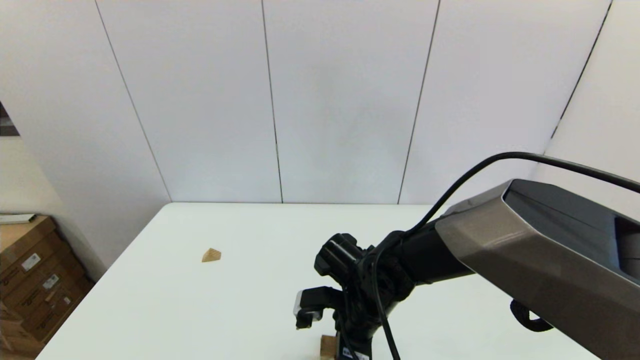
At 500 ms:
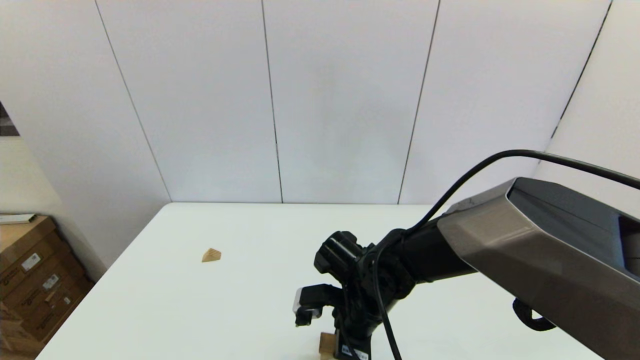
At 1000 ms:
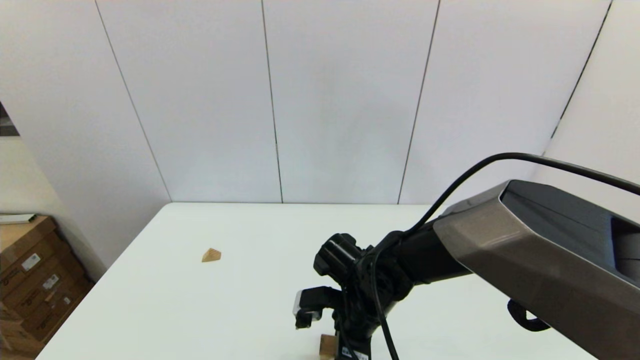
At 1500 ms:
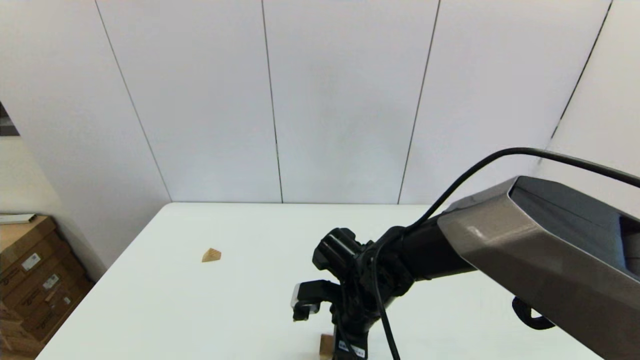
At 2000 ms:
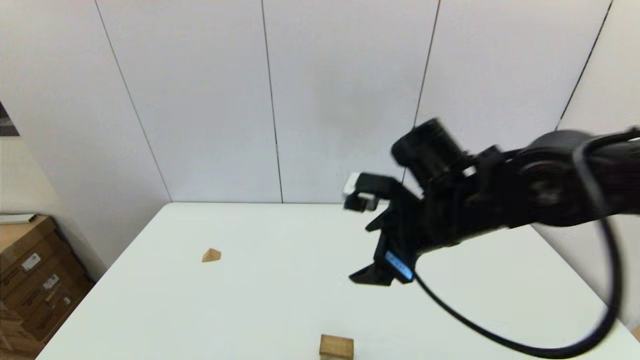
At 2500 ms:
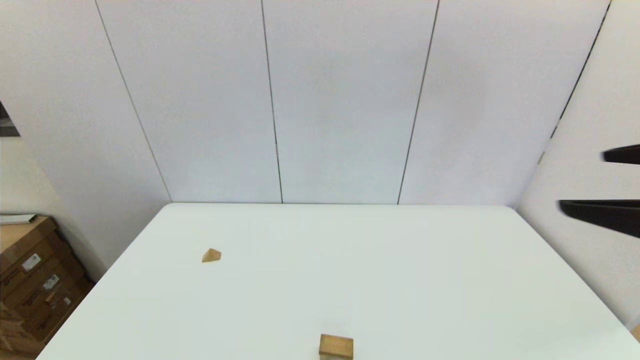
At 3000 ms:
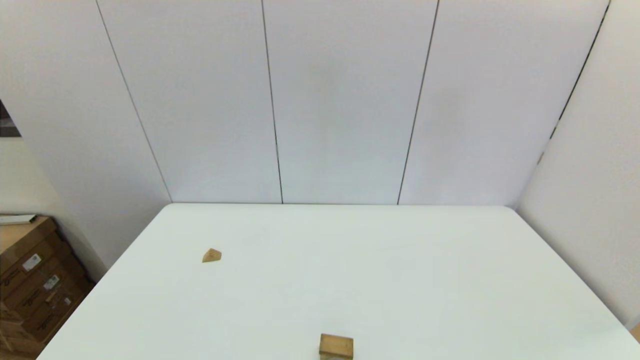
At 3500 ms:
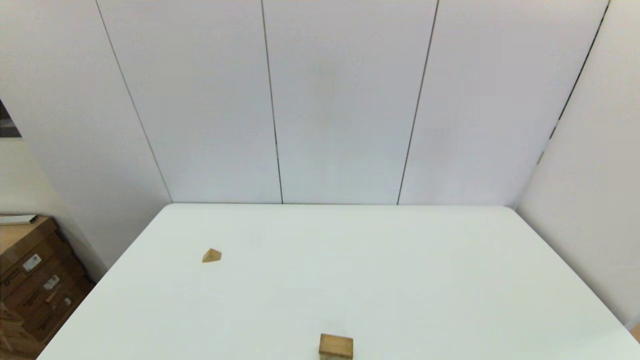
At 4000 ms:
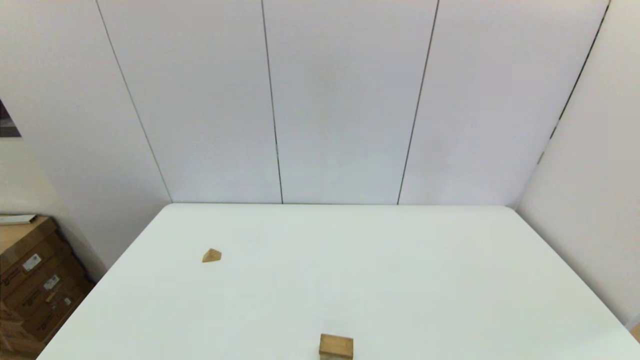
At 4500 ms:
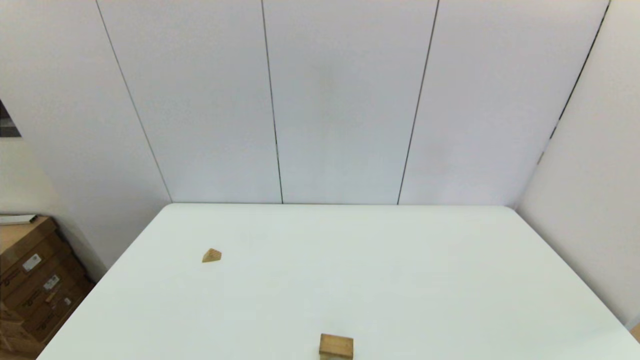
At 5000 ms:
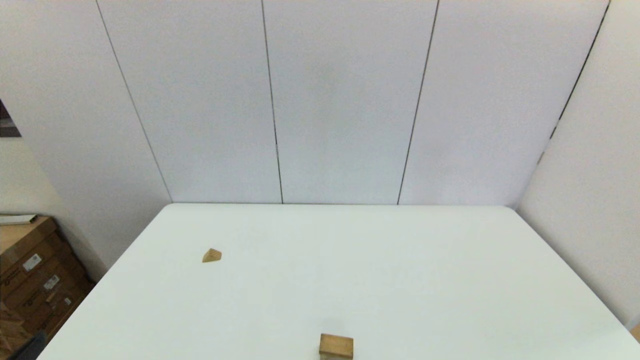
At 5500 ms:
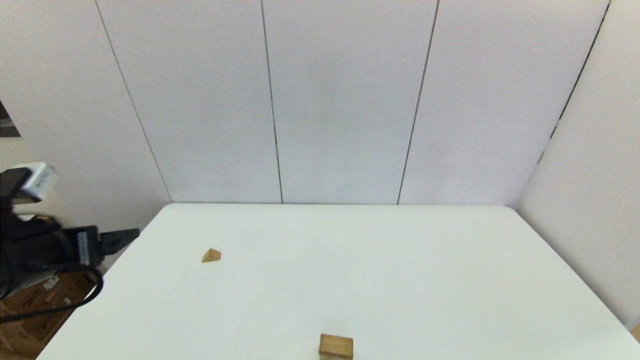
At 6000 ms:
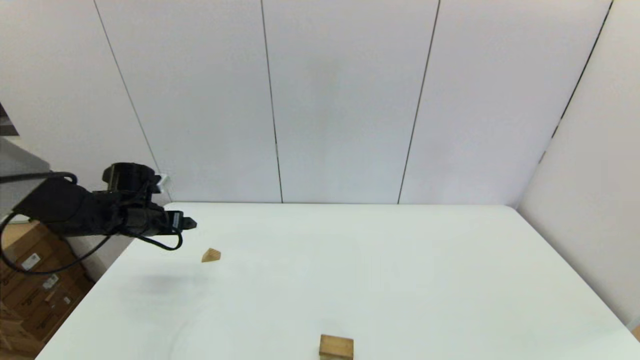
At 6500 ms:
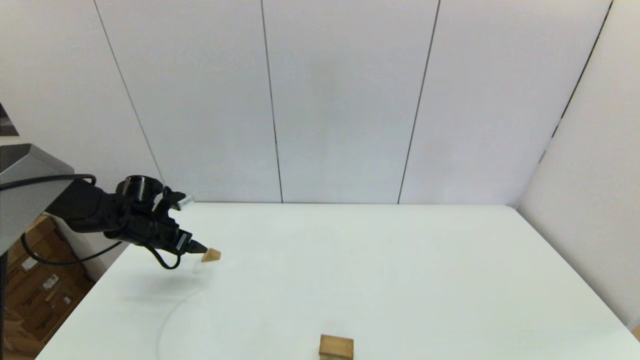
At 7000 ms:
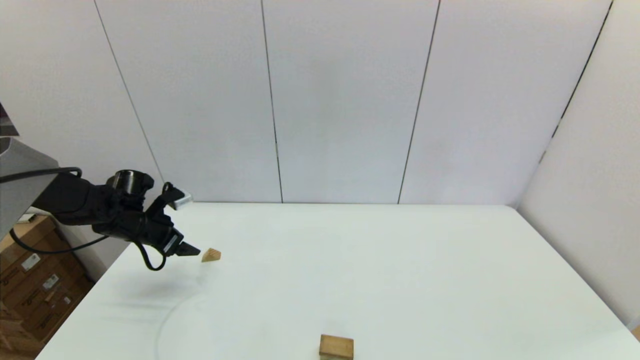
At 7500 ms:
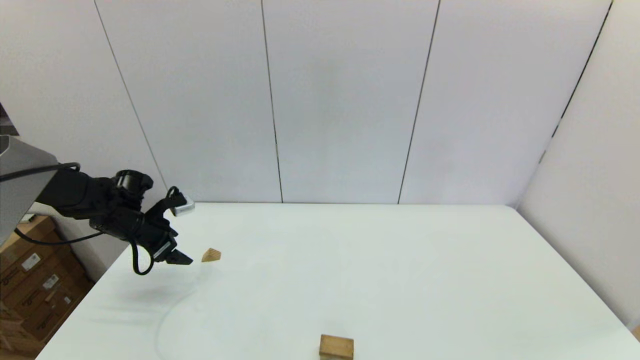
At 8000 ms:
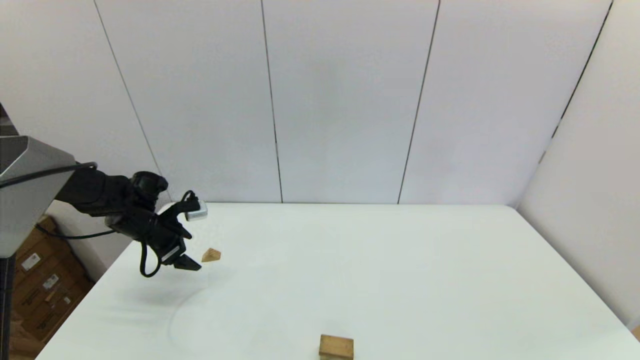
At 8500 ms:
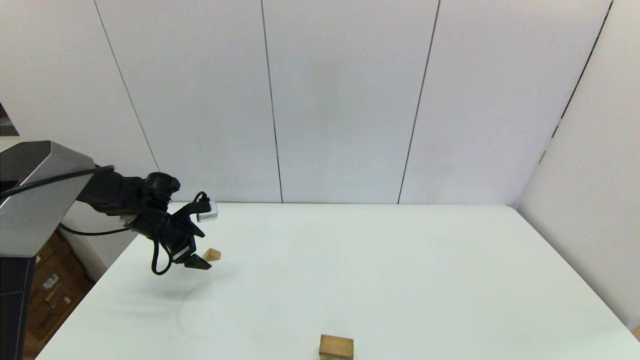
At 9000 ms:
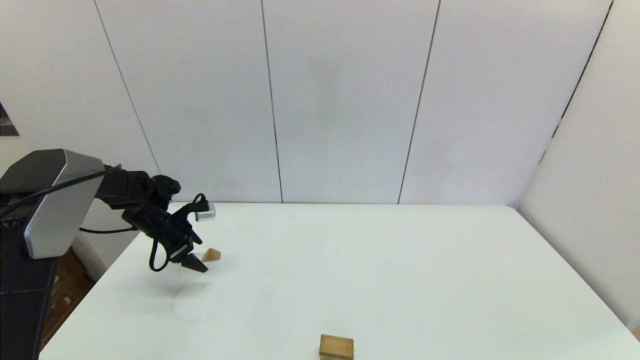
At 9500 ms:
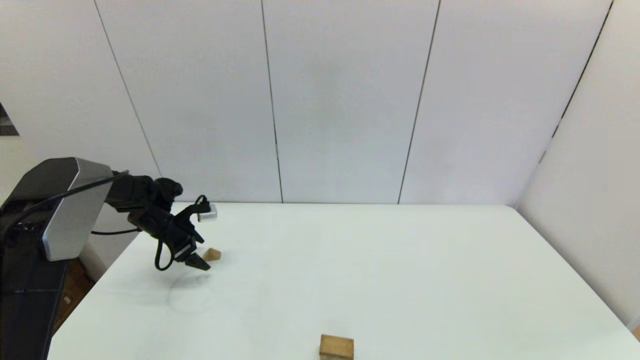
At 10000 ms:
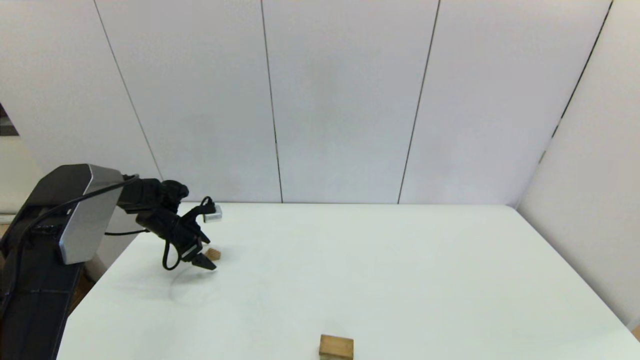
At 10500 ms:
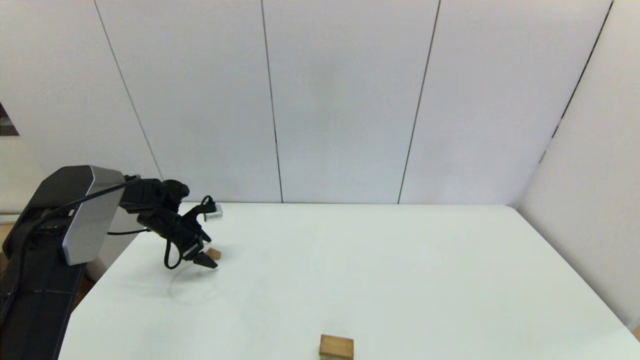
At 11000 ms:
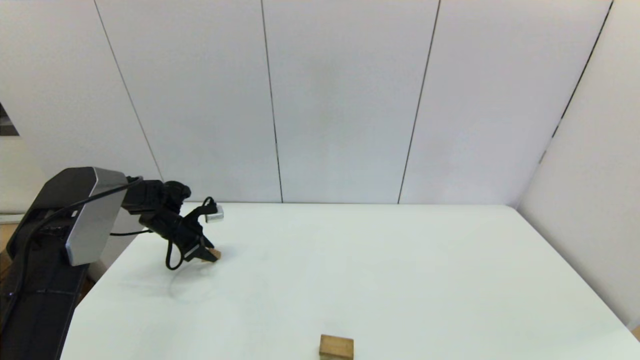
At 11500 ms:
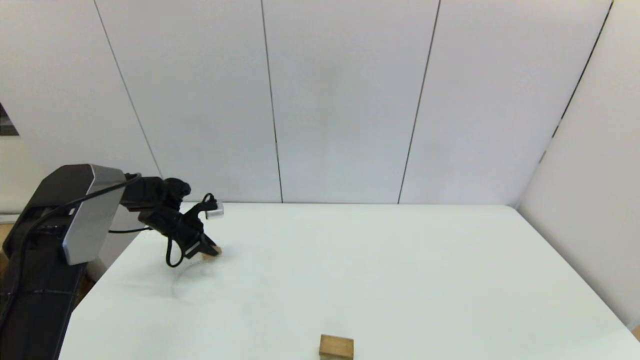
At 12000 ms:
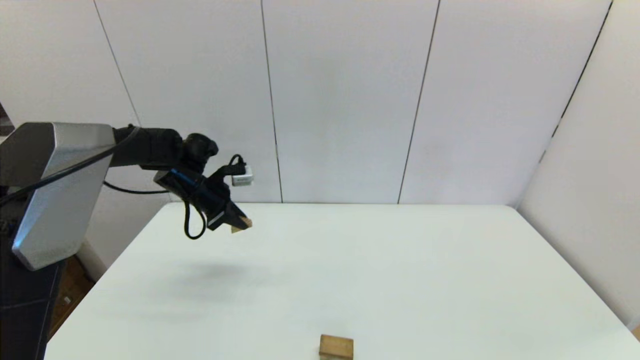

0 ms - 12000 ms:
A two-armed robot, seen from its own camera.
Task of the whole recording: place the arched building blocks in the center of the table, set up the rectangular building blocks, and then set up the triangular building blocks.
Step, 1500 ms - 11000 ms: Grasp the triangle-shaped block with the left gripper.
0 ms - 2000 ms: The right gripper heads upward and to the right, covering roughly 20 cm, and opens up.
2000 ms - 4000 ms: The right gripper moves backward and to the right, about 35 cm.
4000 ms - 6000 ms: The left gripper shifts approximately 40 cm forward.
8000 ms - 10000 ms: The left gripper is displaced forward and downward by some 10 cm.
10000 ms - 12000 ms: The left gripper heads upward and to the right, covering some 20 cm, and closes up.

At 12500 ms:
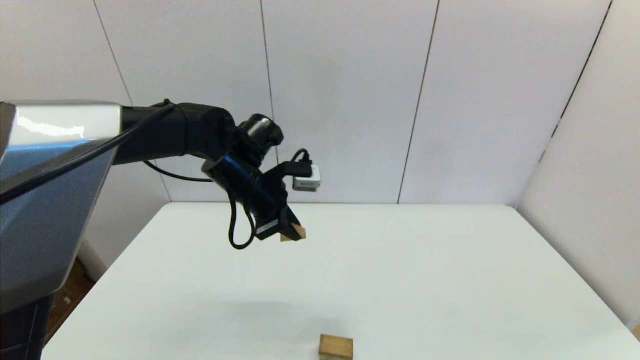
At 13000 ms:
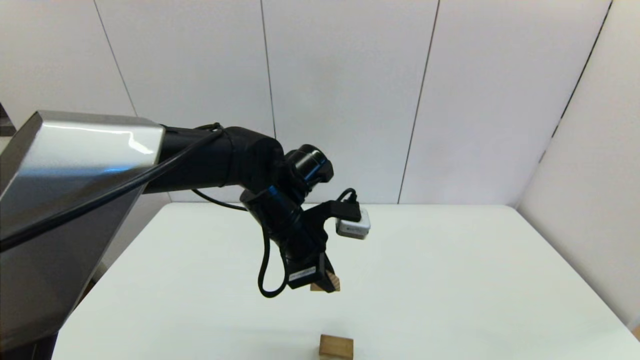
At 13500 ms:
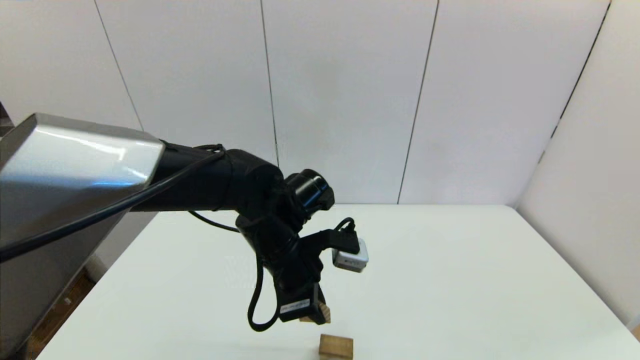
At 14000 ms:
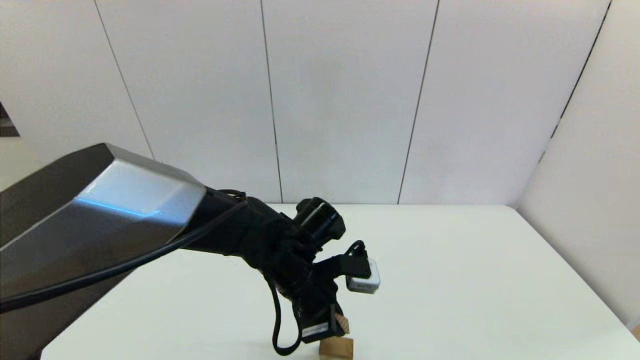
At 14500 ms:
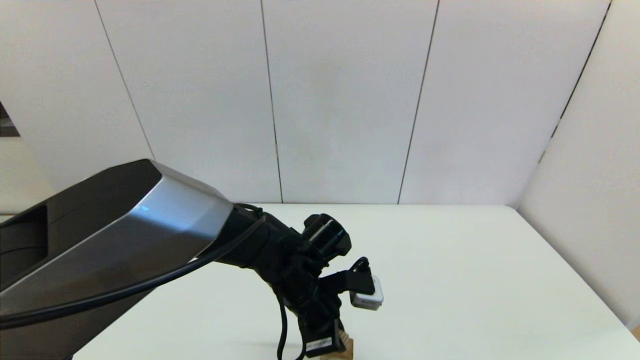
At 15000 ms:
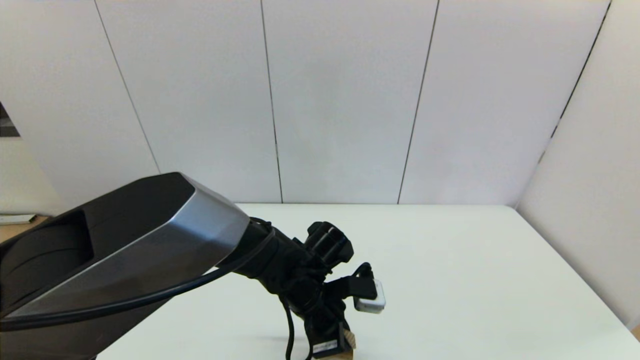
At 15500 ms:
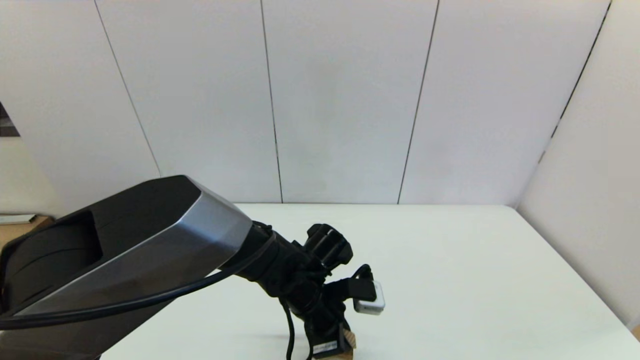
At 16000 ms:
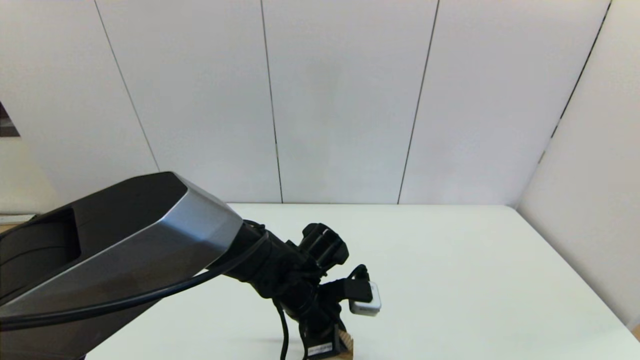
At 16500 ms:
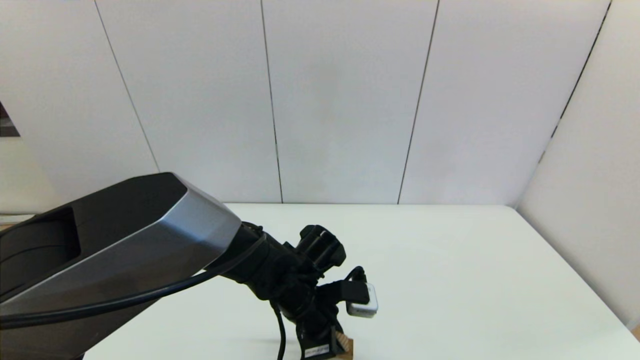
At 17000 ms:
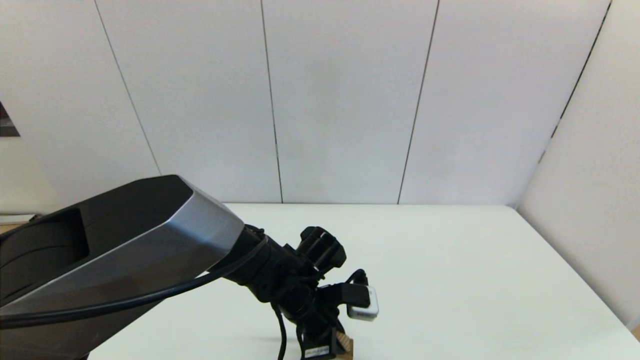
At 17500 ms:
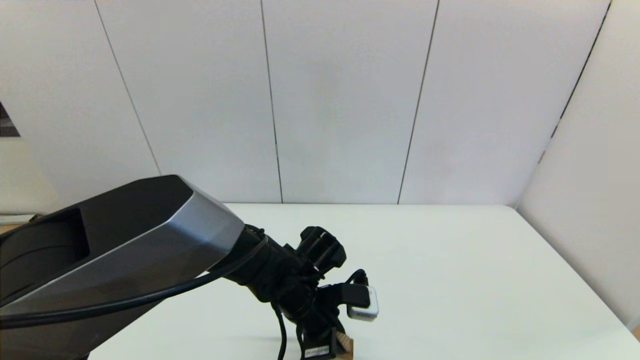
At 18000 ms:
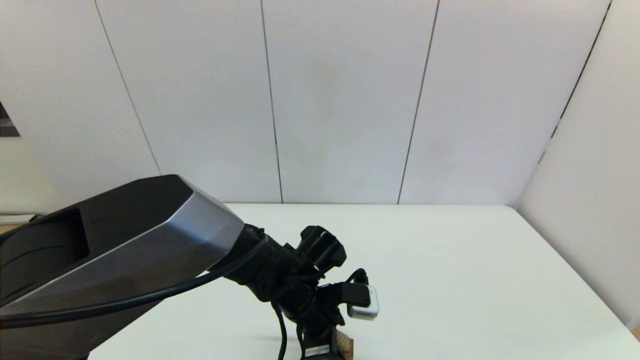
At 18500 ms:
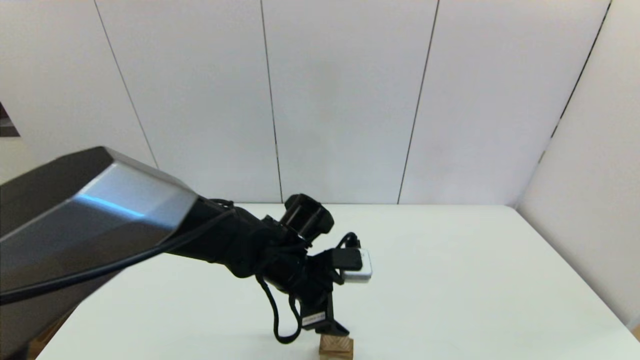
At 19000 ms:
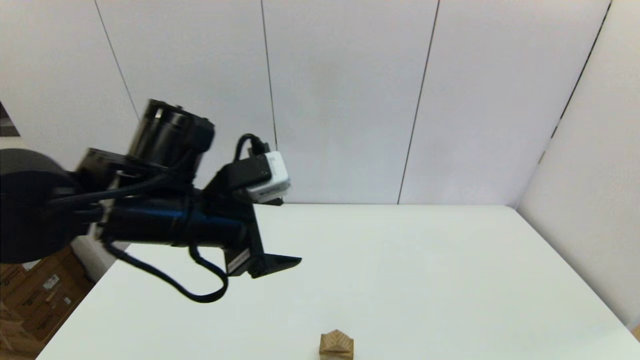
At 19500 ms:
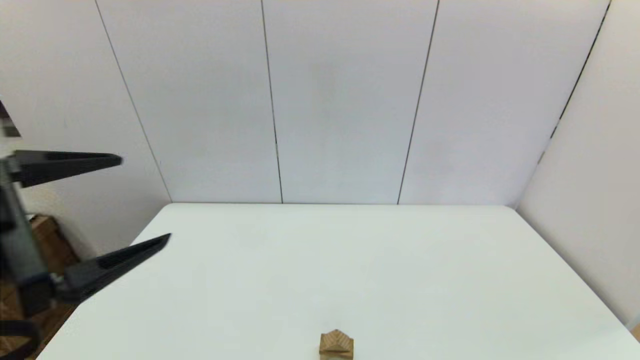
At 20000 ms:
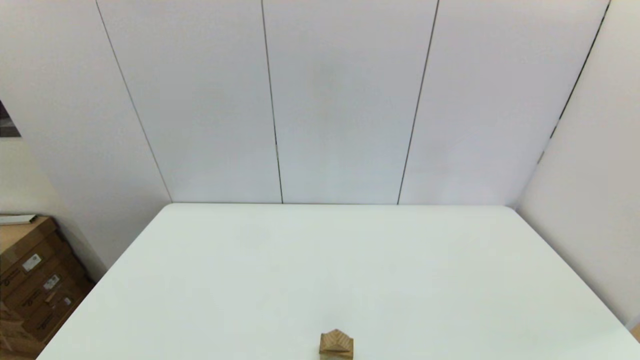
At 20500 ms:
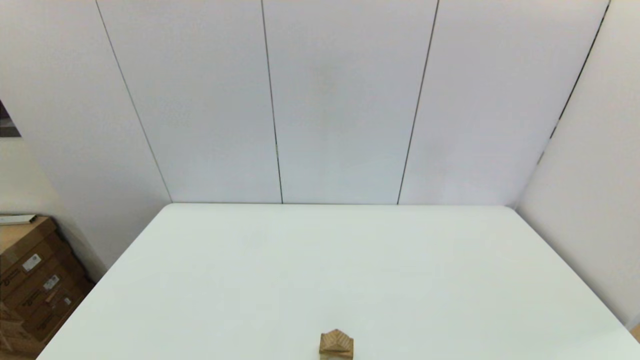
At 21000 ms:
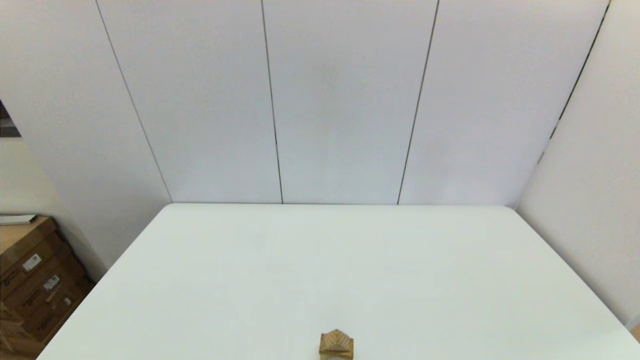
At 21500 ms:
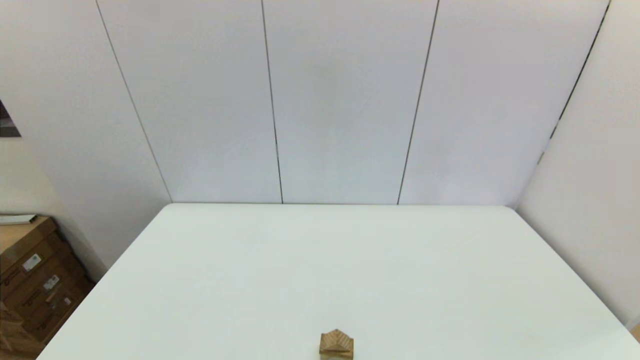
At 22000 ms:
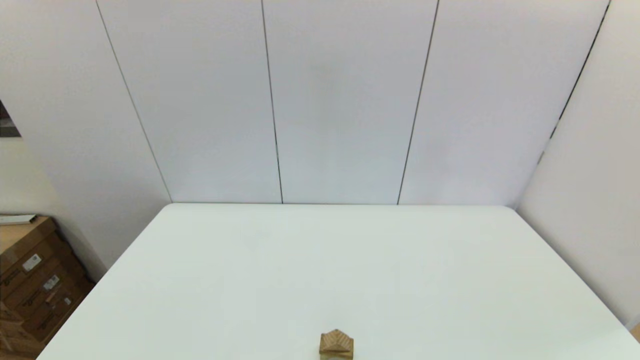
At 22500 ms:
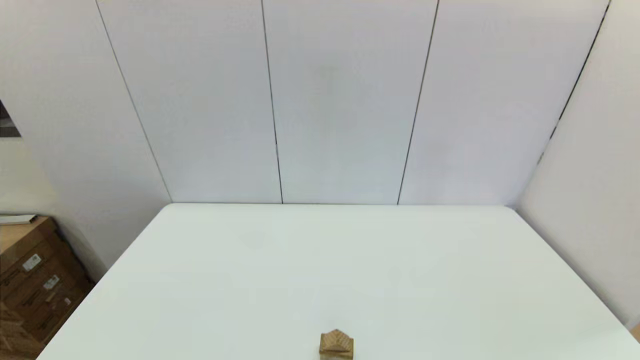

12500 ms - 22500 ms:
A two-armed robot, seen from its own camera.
Task of the whole recording: place the arched building blocks in the center of the table, set up the rectangular building blocks, and then set up the triangular building blocks.
12500 ms - 14500 ms: The left gripper heads downward, backward and to the right, covering about 15 cm.
14500 ms - 16500 ms: There are only small adjustments of the grippers.
16500 ms - 18500 ms: The left gripper shifts approximately 5 cm upward, and opens.
18500 ms - 20500 ms: The left gripper is displaced backward and to the left by some 40 cm.
